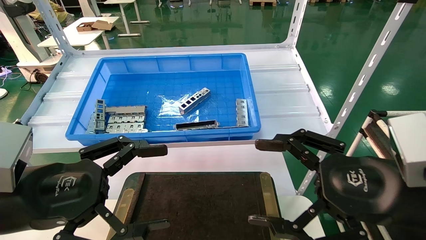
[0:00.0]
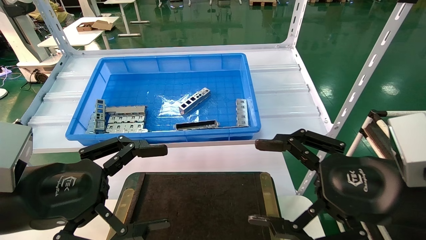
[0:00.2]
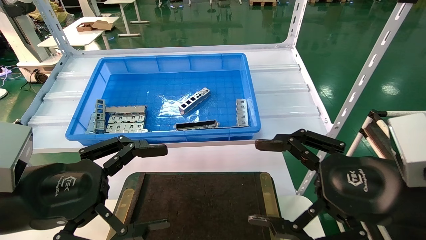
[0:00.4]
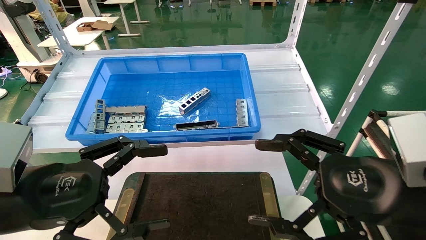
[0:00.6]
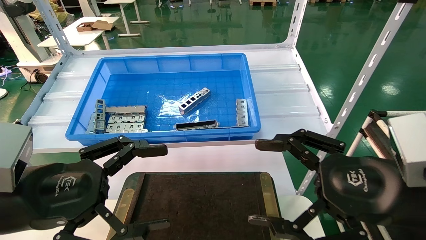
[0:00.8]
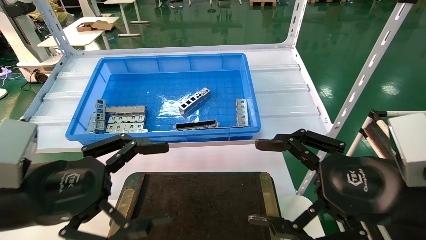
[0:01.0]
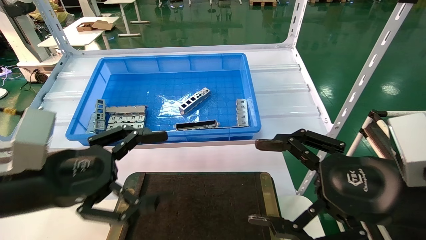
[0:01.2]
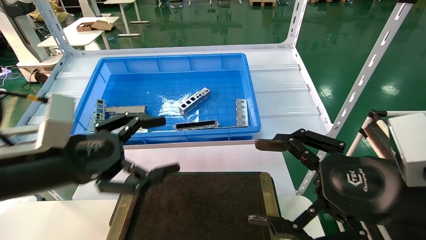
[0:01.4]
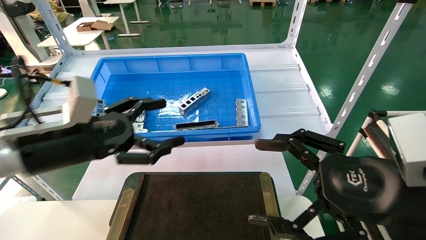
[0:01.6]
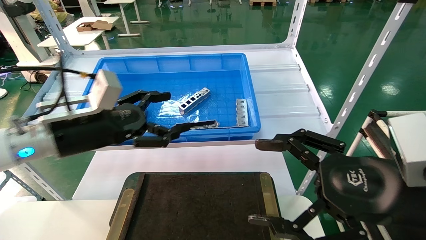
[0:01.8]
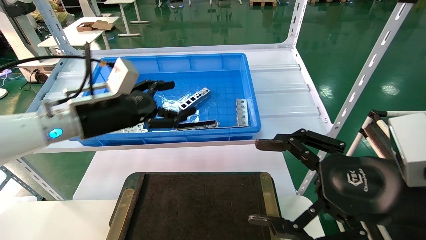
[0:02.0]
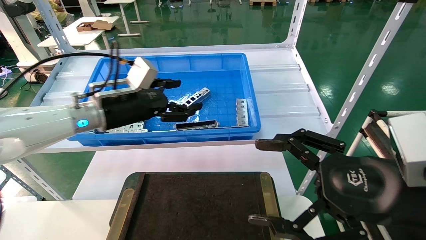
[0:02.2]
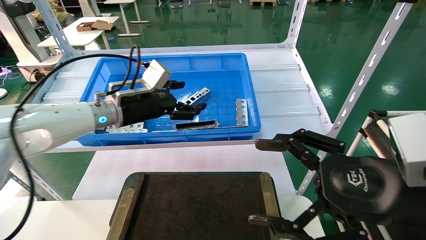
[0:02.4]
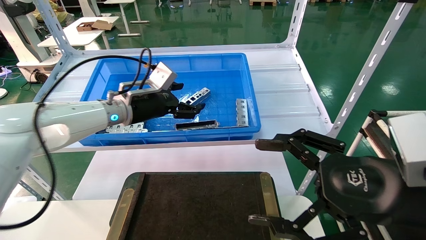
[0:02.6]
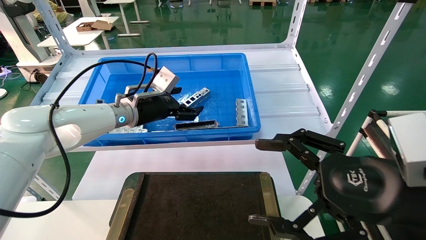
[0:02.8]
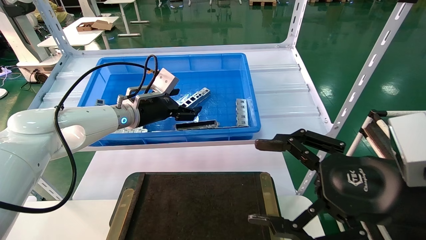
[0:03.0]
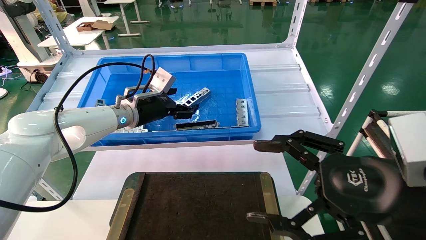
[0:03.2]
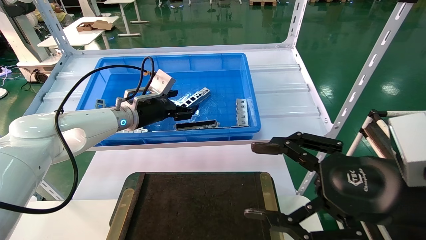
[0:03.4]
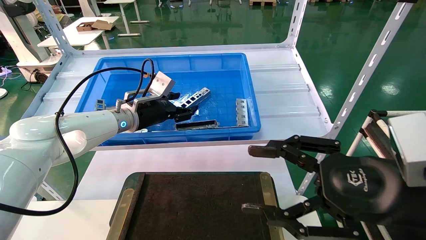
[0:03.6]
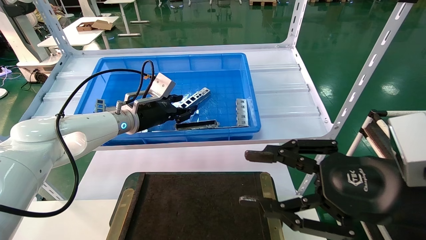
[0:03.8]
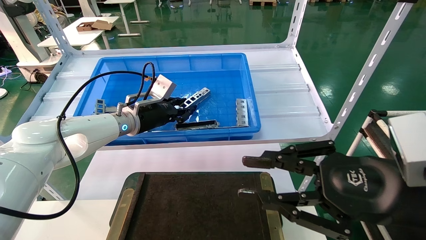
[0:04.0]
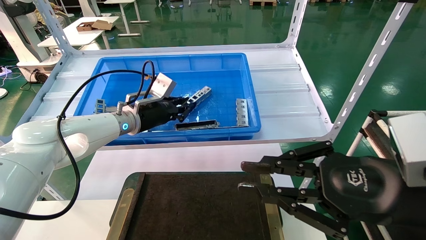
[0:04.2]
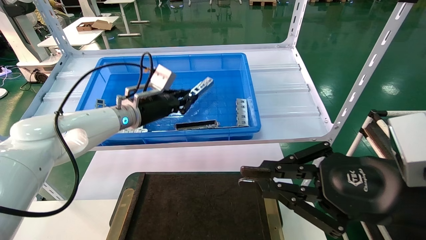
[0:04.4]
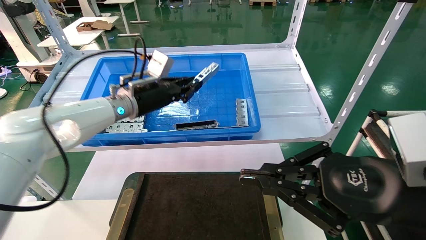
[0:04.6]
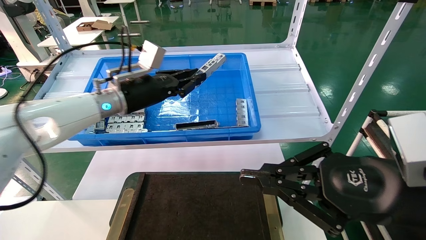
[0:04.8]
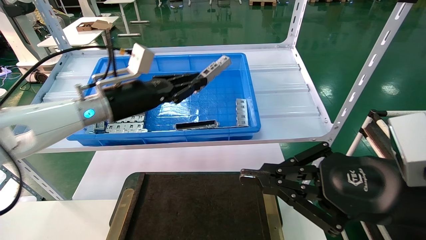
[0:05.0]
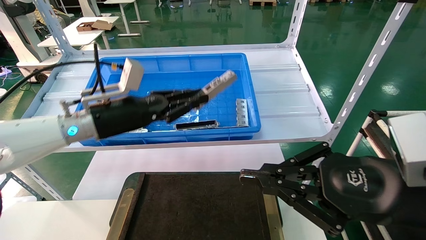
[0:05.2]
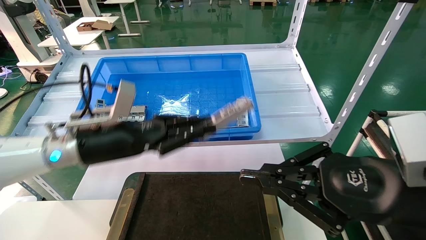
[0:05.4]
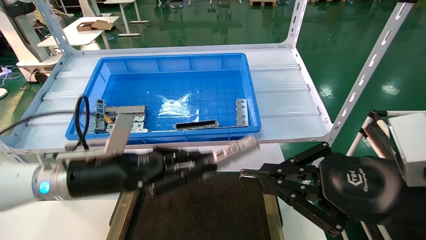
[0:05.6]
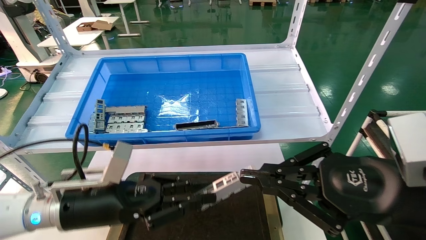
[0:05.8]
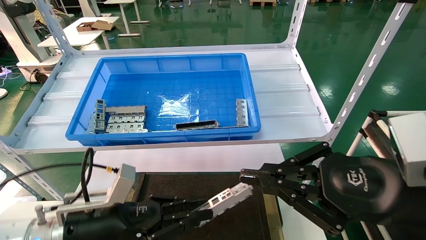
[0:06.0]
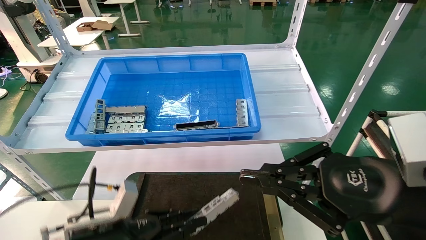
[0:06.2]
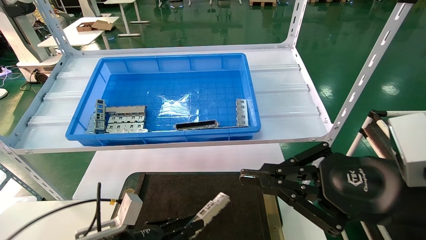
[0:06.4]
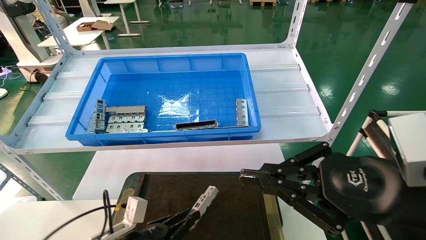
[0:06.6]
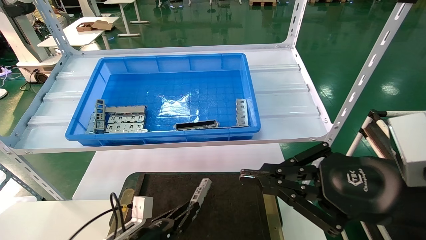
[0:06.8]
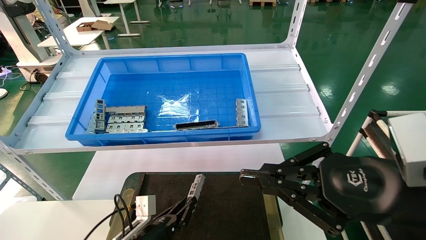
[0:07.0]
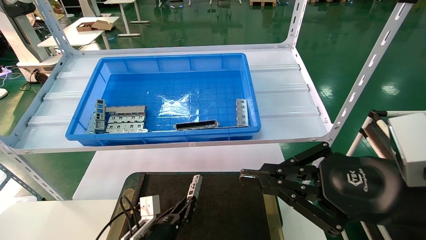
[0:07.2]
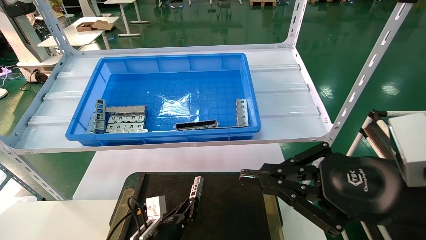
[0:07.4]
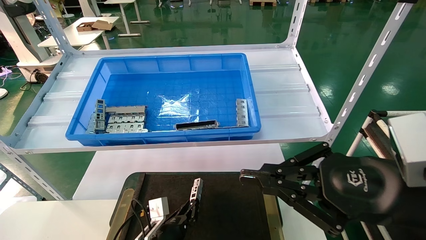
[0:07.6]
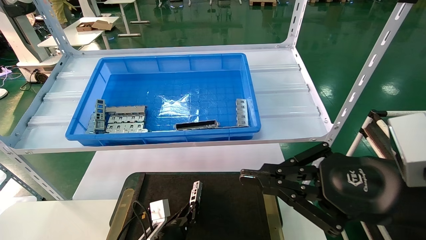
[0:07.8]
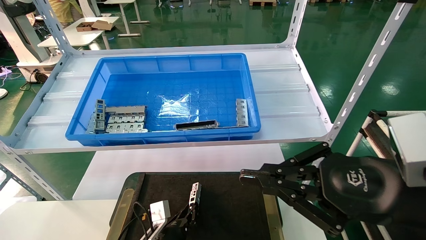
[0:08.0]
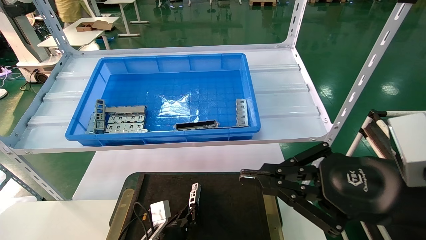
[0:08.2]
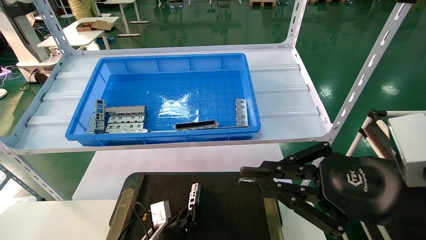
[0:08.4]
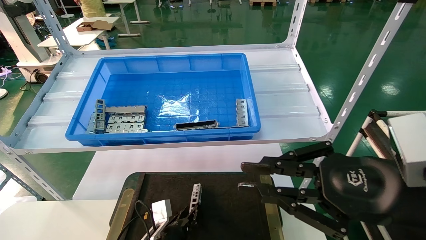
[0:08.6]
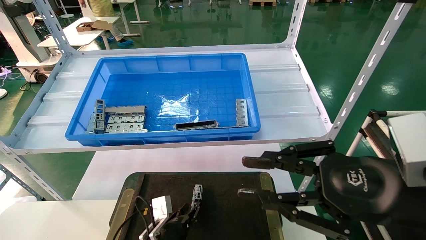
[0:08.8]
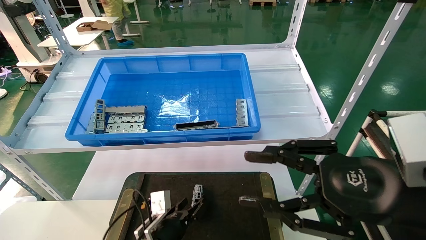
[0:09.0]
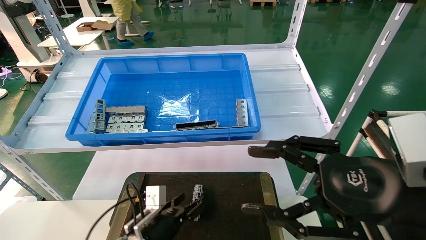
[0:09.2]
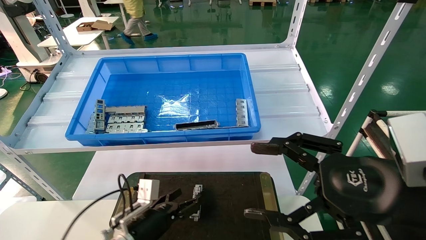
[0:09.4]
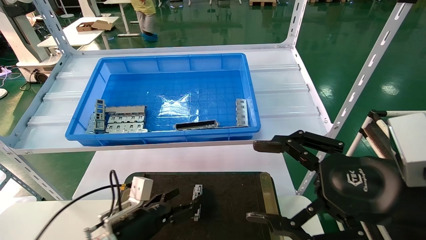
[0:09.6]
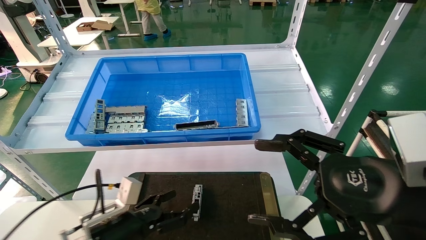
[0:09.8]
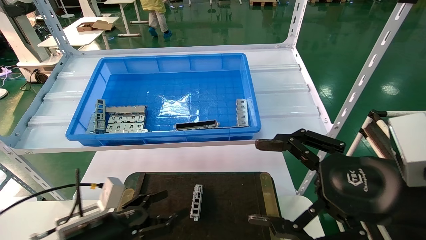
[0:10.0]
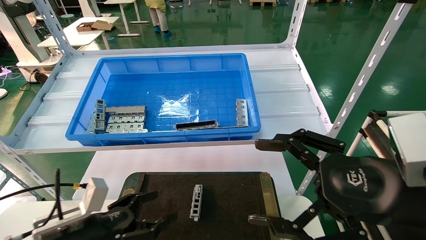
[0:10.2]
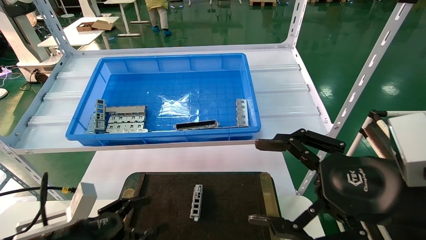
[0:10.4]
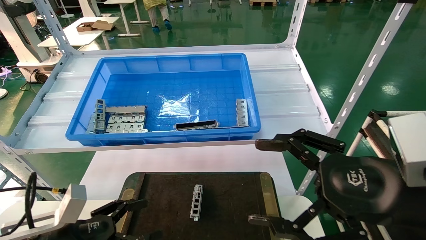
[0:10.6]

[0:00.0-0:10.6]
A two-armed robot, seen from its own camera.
Task of the whole recording: Grasp the part with one hand and place it on the black container.
Step, 0:01.2 to 0:04.4: Pick up the front USB bracket from the feeding area.
Step, 0:04.6 to 0:08.8: Place the front USB bracket into the box.
0:00.0 to 0:01.6: The left gripper travels forward by some 10 cm.
0:01.6 to 0:03.0: The left gripper moves forward, approximately 20 cm.
0:03.0 to 0:04.6: The right gripper closes up, while the left gripper closes its fingers.
0:04.6 to 0:06.0: The left gripper shifts about 25 cm backward and downward.
0:06.0 to 0:07.6: The left gripper travels downward, to the right and forward by about 20 cm.
0:07.6 to 0:09.0: The right gripper opens. Meanwhile the left gripper opens.
0:09.0 to 0:10.6: The right gripper opens its fingers. Meanwhile the left gripper goes some 25 cm to the left, upward and backward, and opens.

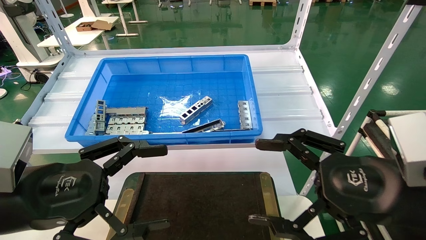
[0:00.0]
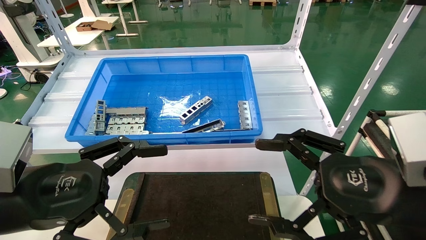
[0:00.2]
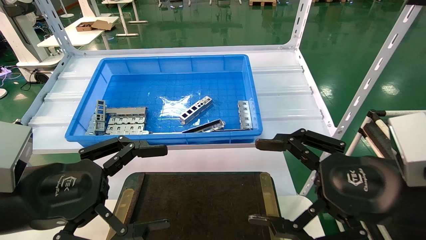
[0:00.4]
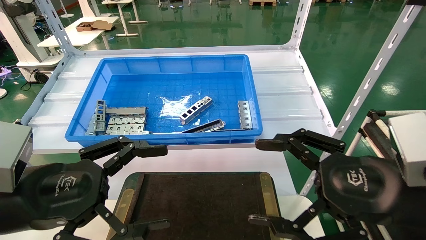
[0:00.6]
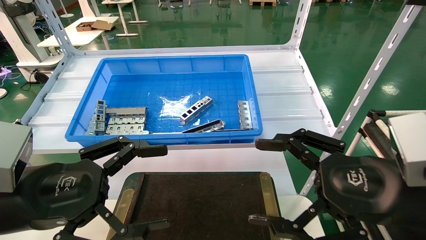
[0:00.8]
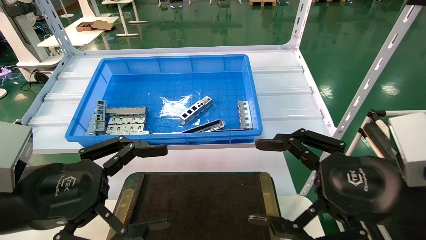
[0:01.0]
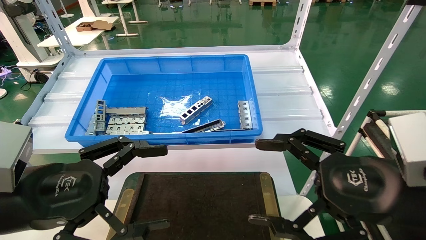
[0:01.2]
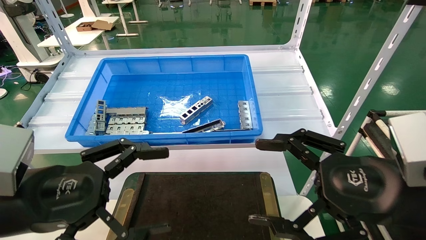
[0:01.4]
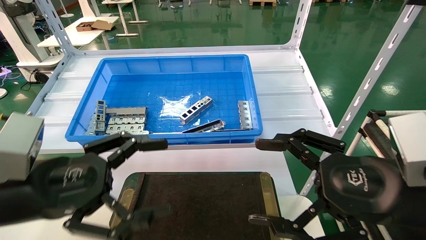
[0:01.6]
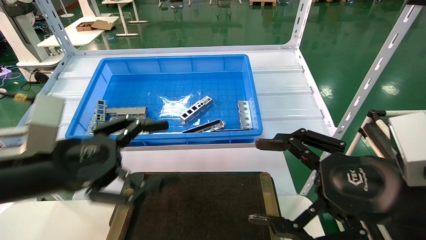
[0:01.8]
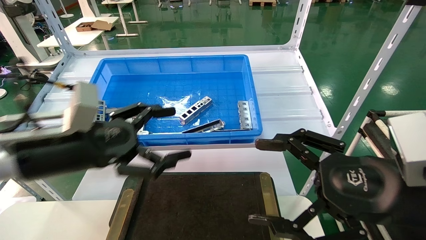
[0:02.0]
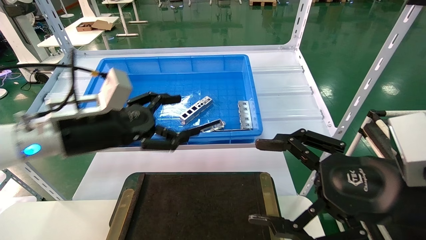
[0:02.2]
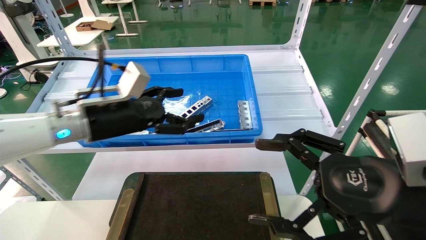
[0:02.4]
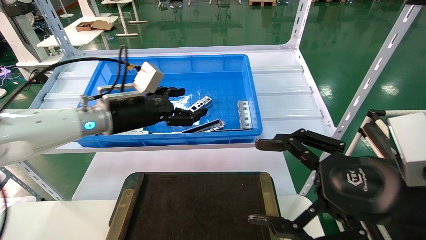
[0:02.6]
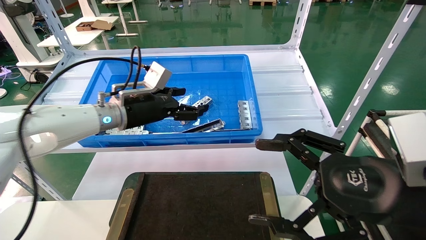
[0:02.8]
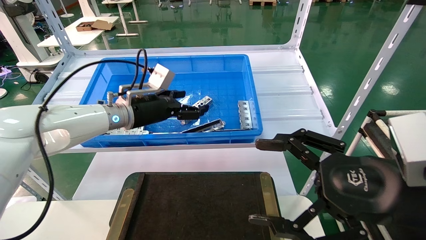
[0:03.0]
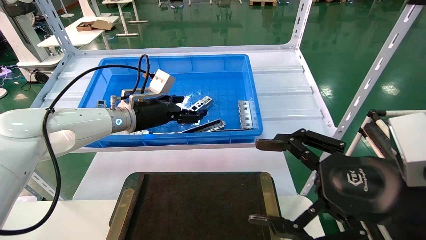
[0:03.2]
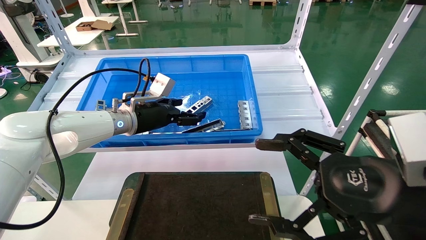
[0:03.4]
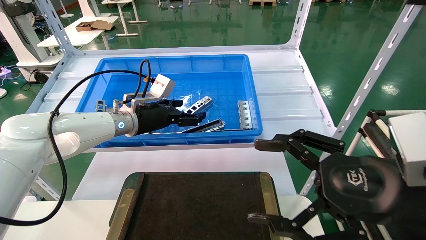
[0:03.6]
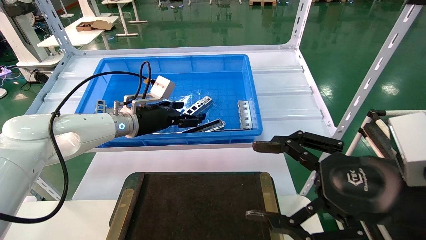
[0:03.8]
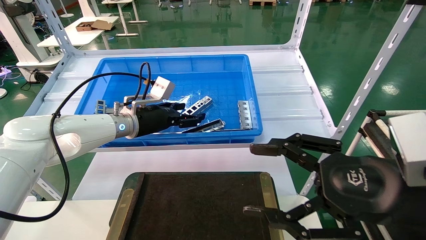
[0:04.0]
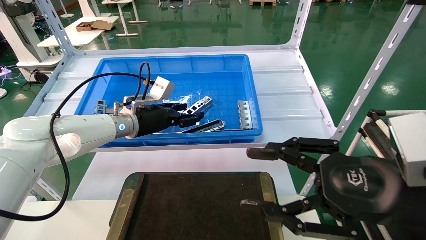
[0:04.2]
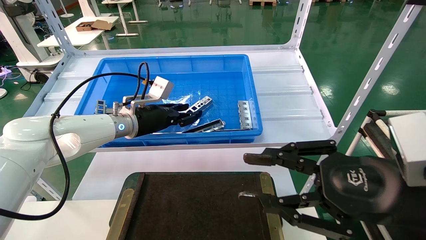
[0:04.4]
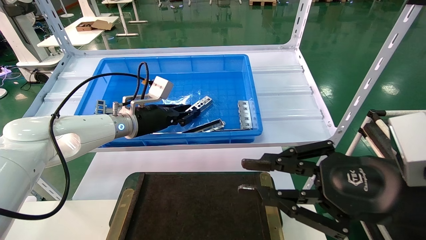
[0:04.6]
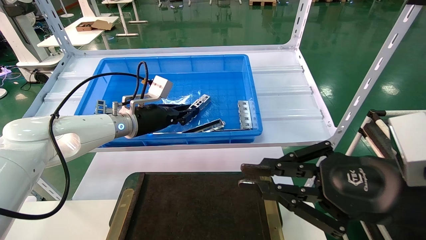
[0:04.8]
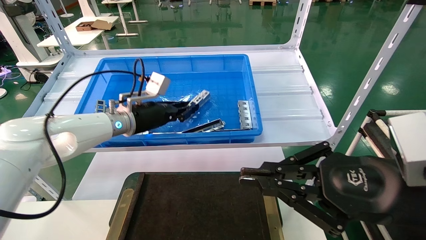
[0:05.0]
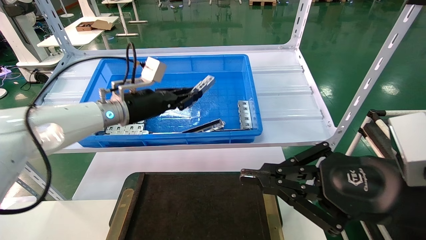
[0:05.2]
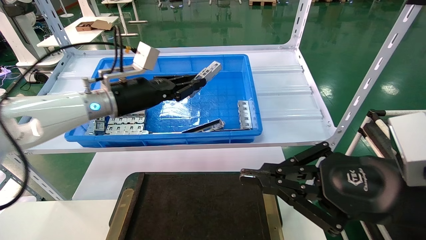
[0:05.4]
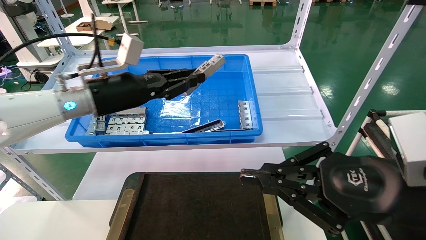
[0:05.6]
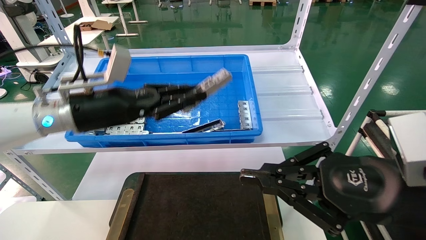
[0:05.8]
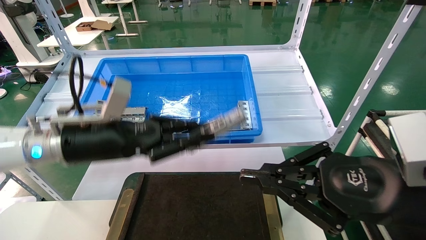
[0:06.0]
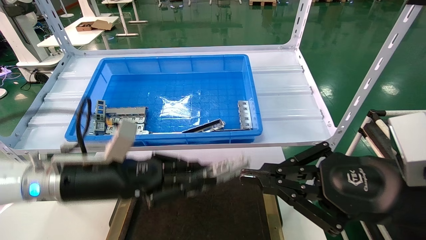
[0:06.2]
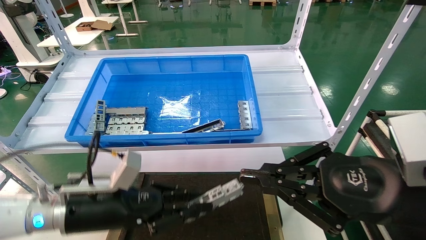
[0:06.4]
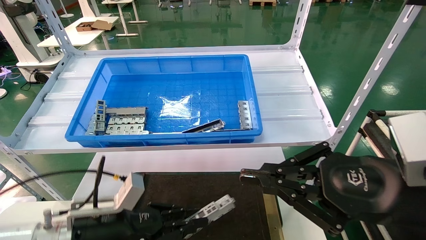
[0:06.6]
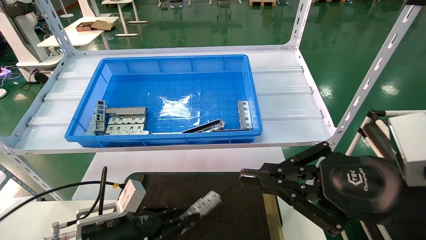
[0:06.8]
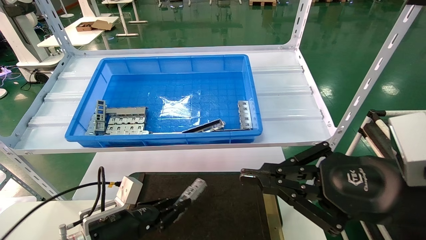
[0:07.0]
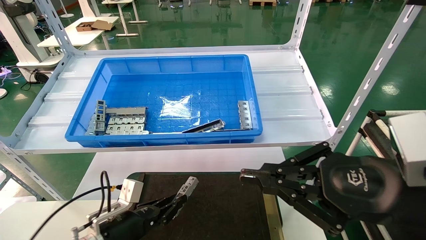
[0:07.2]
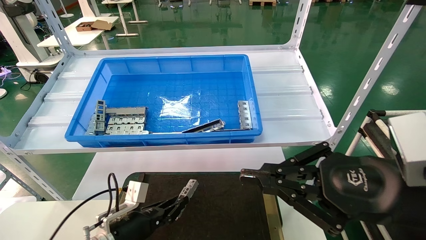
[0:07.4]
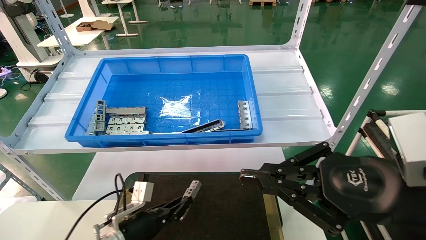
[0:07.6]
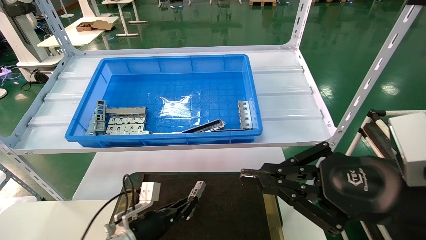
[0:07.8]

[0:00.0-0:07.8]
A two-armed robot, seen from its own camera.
Task of the whole recording: Grasp the part with one hand and place it on the black container.
Step, 0:01.6 to 0:04.6: Pick up the front USB bracket from the feeding area.
0:00.0 to 0:01.6: The grippers make only small movements.
0:01.6 to 0:03.2: The left gripper heads forward, covering roughly 25 cm.
0:03.2 to 0:04.6: The right gripper closes up. The left gripper closes up.
0:04.6 to 0:06.2: The left gripper shifts roughly 15 cm backward. Meanwhile the right gripper closes up.
0:06.2 to 0:07.8: The left gripper travels downward by some 20 cm.
